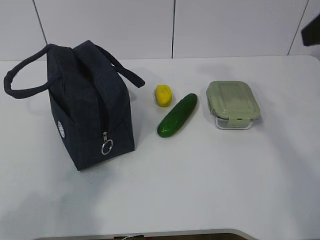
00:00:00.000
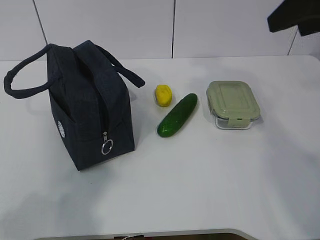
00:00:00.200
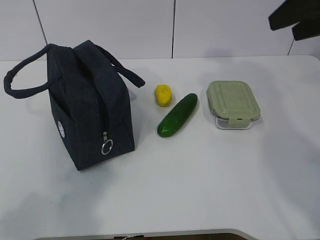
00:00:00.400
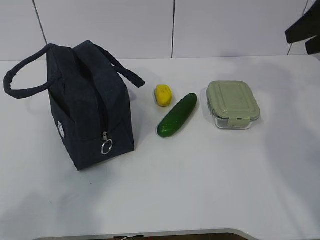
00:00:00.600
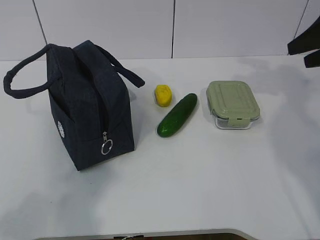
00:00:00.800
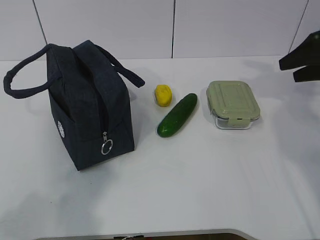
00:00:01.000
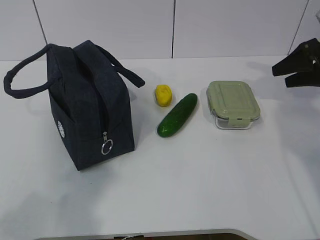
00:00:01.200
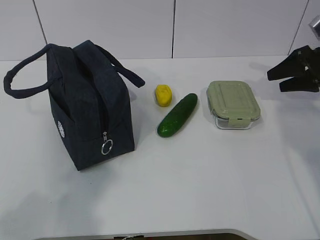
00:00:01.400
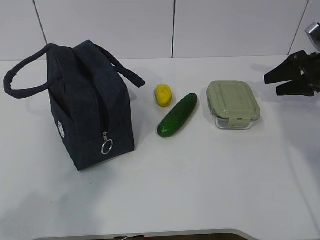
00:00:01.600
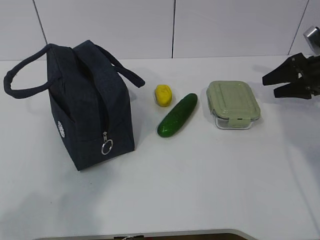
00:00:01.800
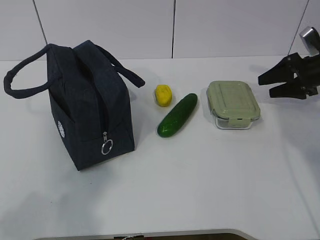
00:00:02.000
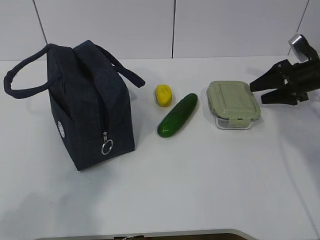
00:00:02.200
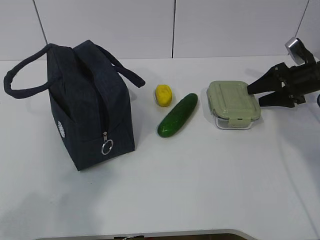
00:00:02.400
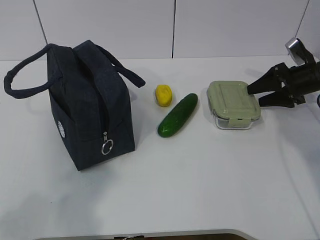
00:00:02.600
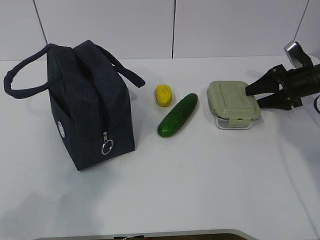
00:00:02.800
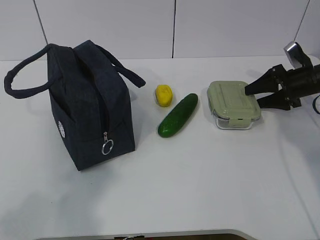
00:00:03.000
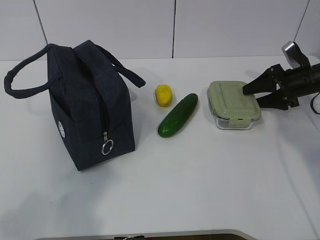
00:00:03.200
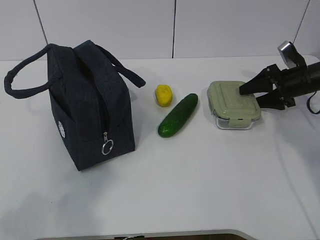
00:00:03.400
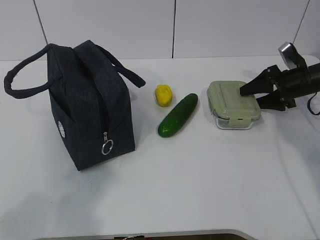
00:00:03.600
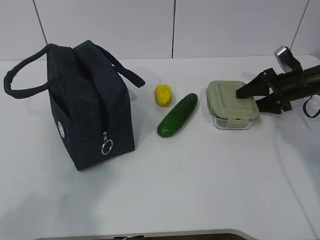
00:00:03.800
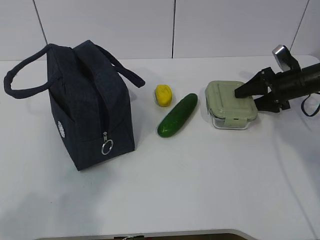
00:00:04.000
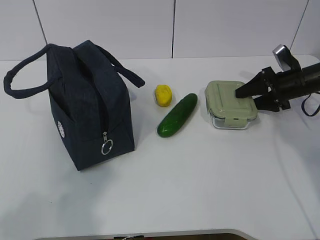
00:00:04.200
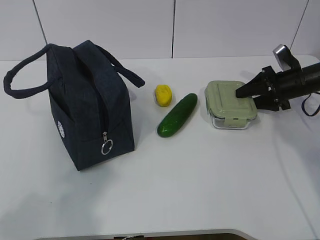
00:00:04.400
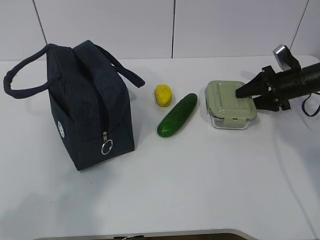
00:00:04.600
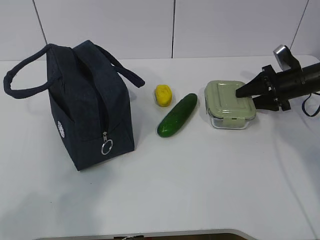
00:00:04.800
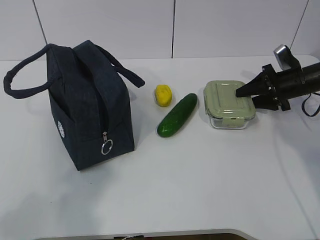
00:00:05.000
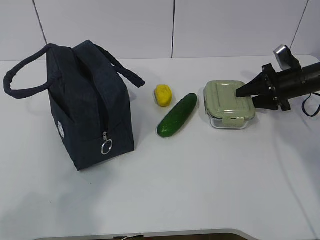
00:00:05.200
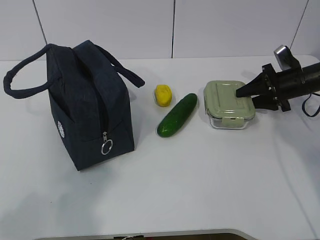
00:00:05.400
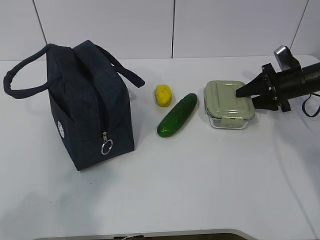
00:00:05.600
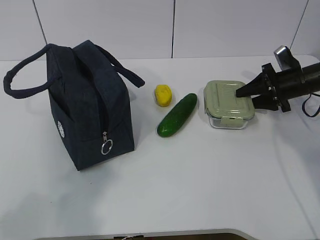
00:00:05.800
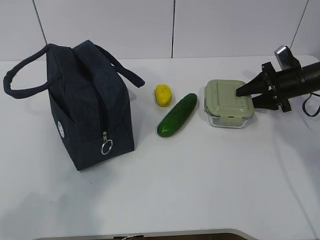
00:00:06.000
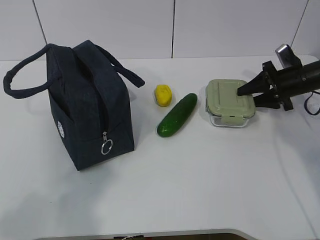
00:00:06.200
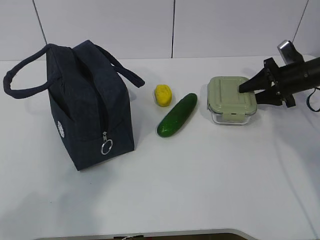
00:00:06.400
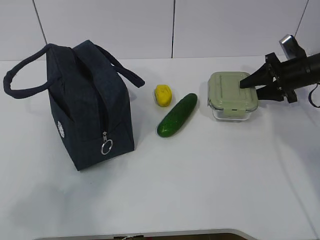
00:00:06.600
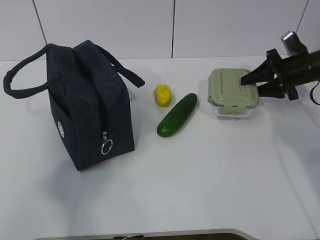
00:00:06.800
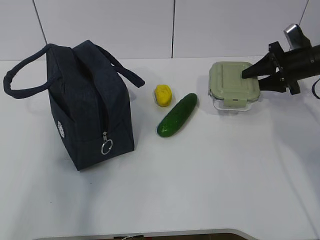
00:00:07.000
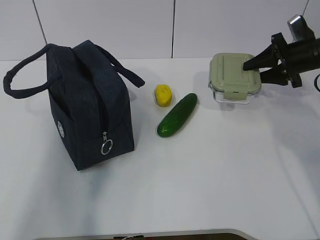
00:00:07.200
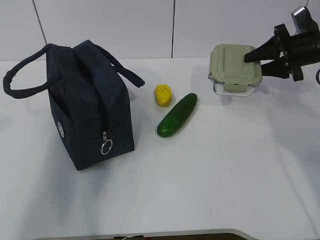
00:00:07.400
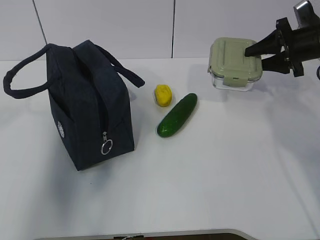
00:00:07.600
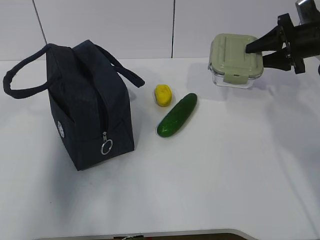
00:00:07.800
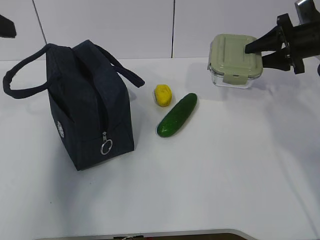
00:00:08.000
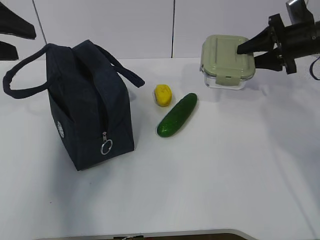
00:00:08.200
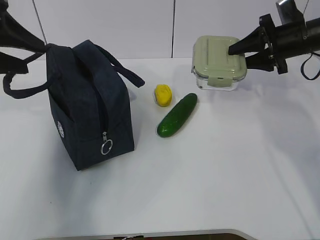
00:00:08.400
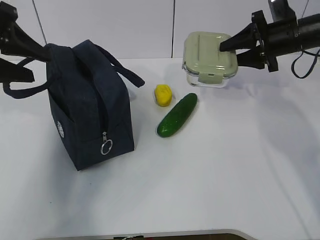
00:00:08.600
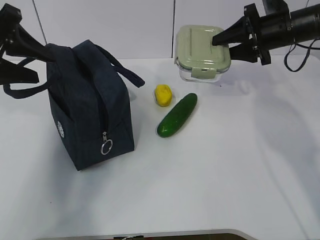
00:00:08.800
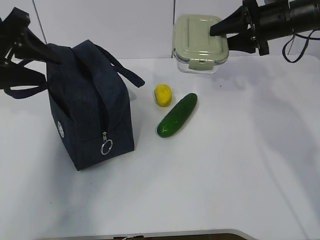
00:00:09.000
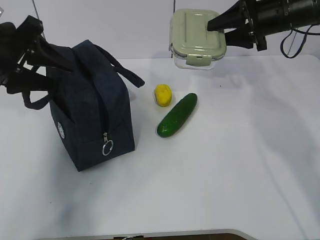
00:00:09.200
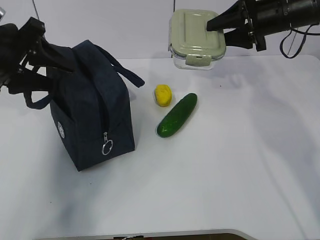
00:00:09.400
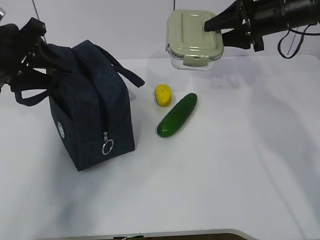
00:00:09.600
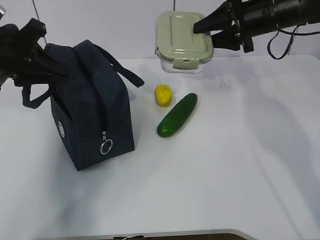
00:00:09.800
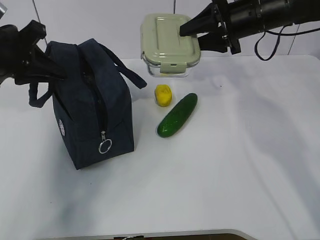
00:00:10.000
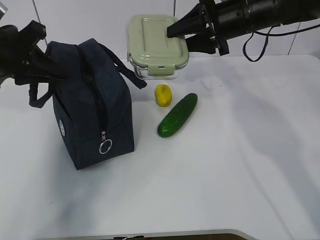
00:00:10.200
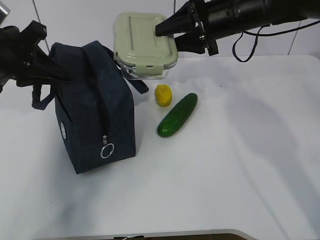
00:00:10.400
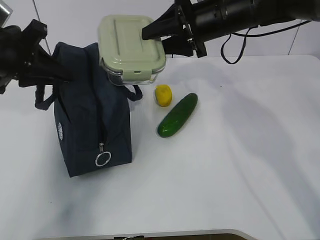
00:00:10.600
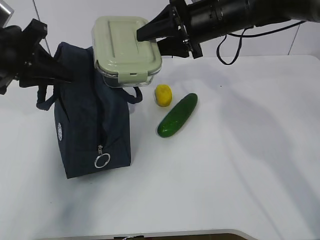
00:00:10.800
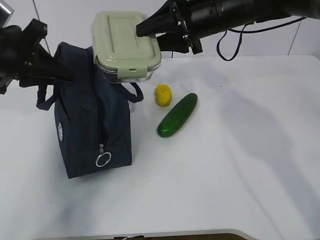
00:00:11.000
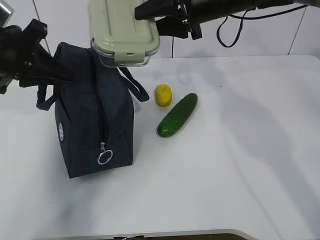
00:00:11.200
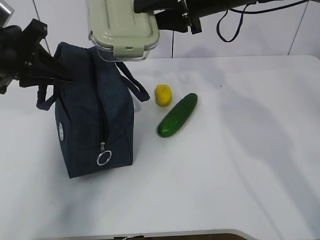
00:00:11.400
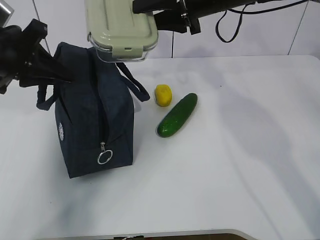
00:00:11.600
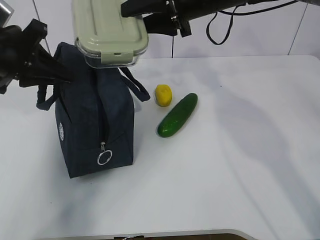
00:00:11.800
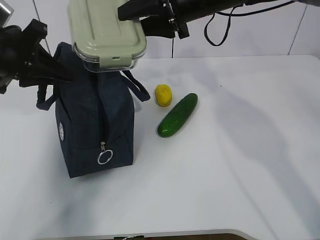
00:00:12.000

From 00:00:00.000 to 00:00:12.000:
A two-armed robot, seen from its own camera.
Step, from 00:00:00.000 to 00:00:04.200: Grab the lunch box with your right hand.
Step, from 00:00:04.400 to 00:00:10.000: Grab the lunch bag with your left hand.
From 00:00:00.000 to 00:00:01.600: The right gripper heads forward, downward and to the right, covering approximately 30 cm.
From 00:00:01.600 to 00:00:03.000: The right gripper moves some 5 cm.
From 00:00:03.000 to 00:00:06.000: The grippers make only small movements.
From 00:00:06.000 to 00:00:07.600: The left gripper travels forward and upward by some 20 cm, while the right gripper shifts approximately 10 cm upward.
From 00:00:07.600 to 00:00:09.000: The left gripper travels forward by about 15 cm. The right gripper shifts some 10 cm to the left.
From 00:00:09.000 to 00:00:10.400: The left gripper closes up; the right gripper heads to the left, covering roughly 10 cm.
From 00:00:10.400 to 00:00:12.000: The right gripper heads to the left, covering some 5 cm.

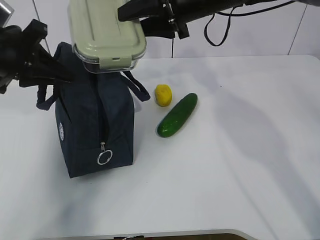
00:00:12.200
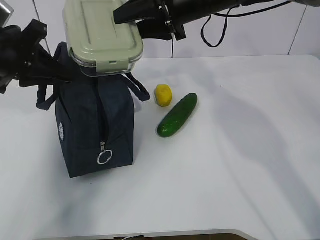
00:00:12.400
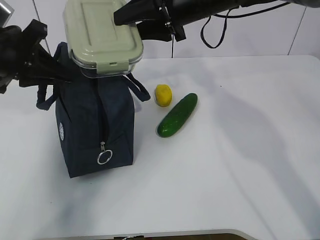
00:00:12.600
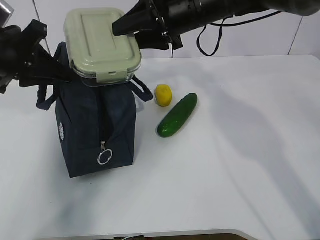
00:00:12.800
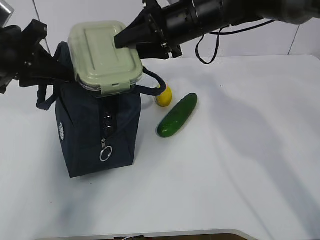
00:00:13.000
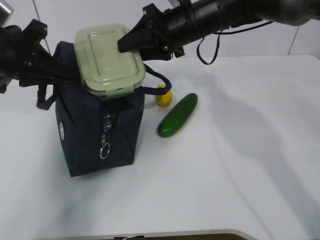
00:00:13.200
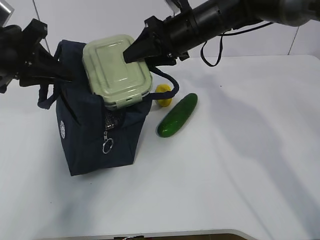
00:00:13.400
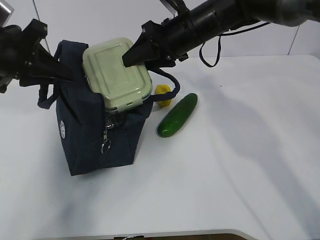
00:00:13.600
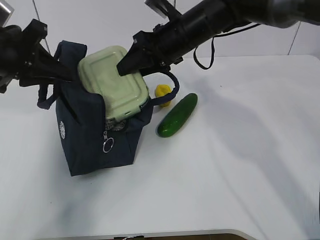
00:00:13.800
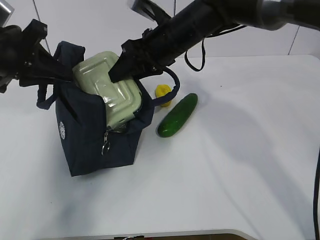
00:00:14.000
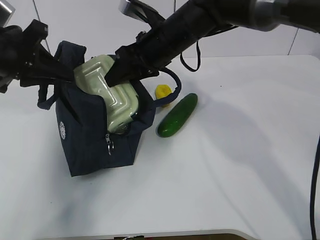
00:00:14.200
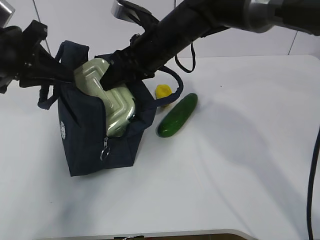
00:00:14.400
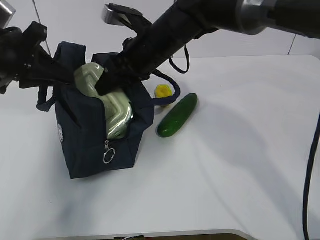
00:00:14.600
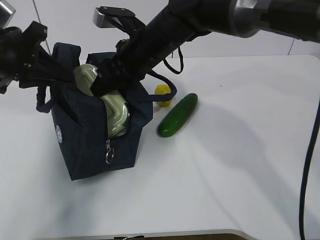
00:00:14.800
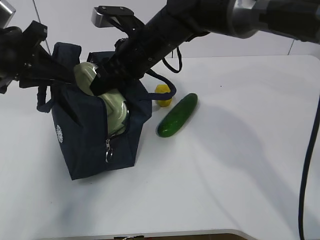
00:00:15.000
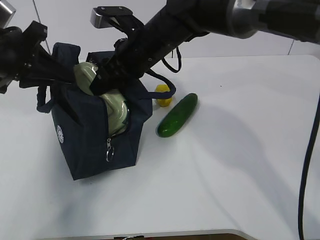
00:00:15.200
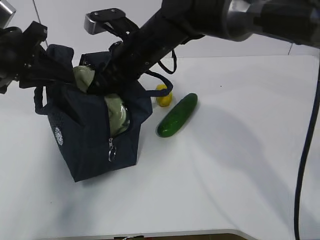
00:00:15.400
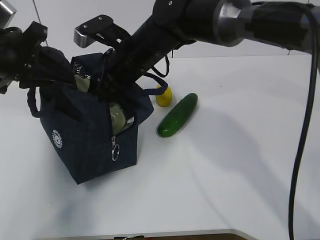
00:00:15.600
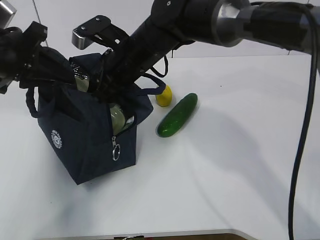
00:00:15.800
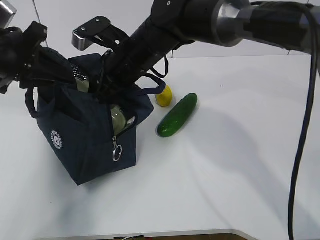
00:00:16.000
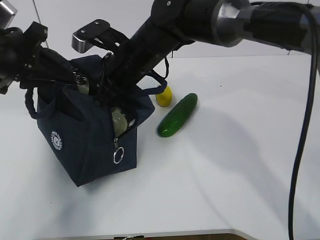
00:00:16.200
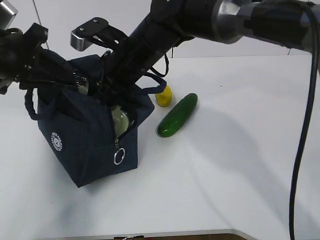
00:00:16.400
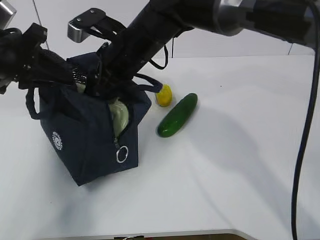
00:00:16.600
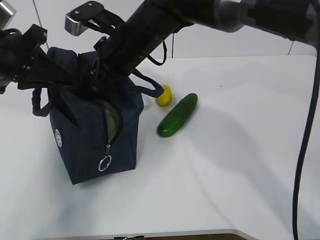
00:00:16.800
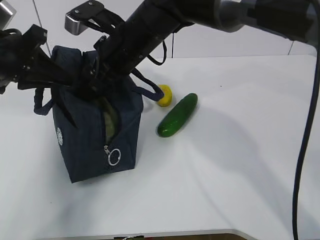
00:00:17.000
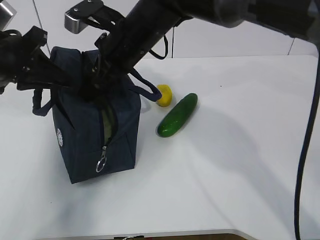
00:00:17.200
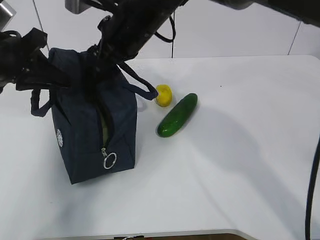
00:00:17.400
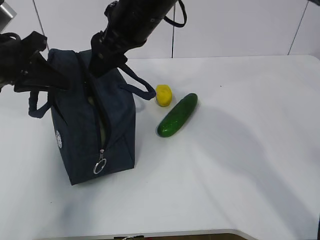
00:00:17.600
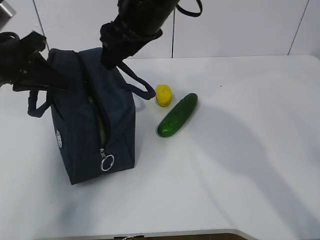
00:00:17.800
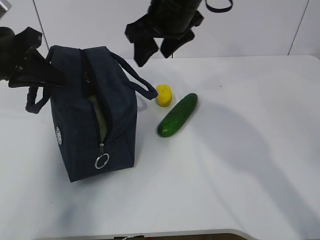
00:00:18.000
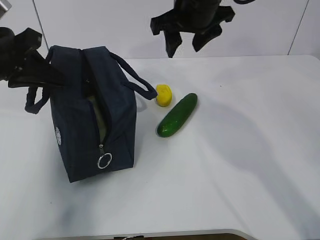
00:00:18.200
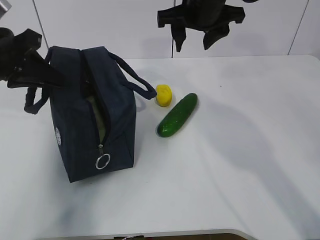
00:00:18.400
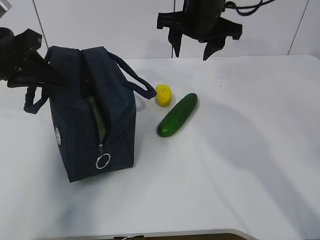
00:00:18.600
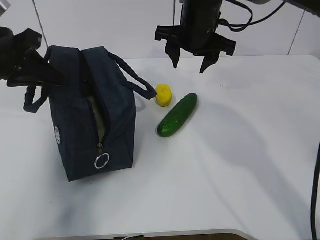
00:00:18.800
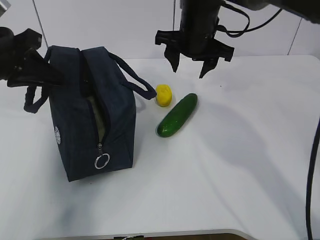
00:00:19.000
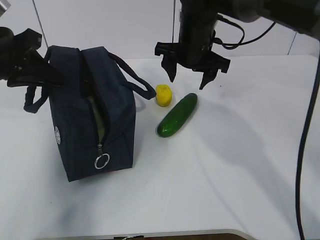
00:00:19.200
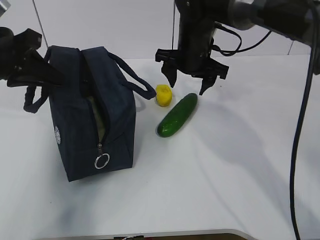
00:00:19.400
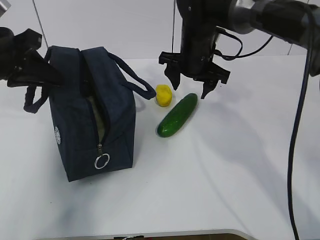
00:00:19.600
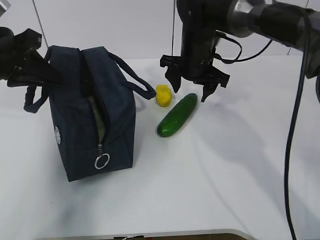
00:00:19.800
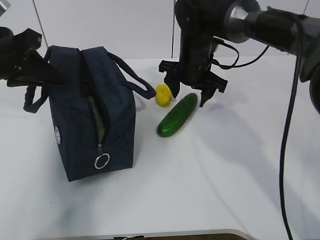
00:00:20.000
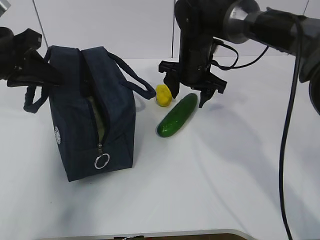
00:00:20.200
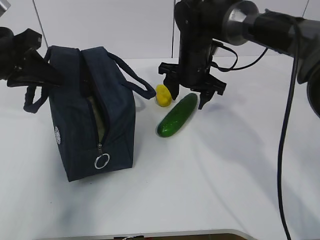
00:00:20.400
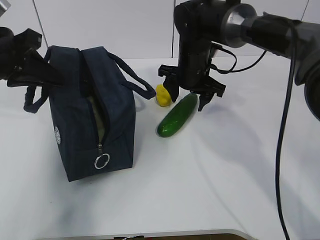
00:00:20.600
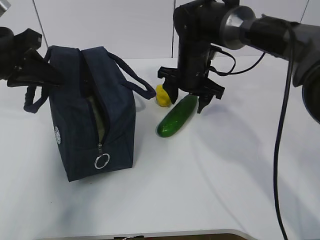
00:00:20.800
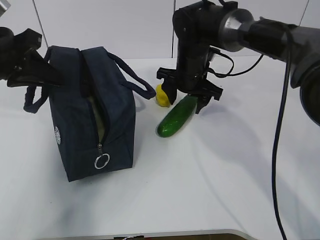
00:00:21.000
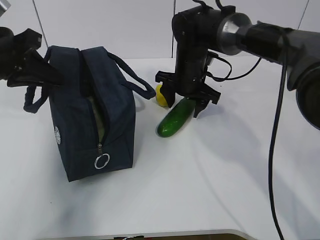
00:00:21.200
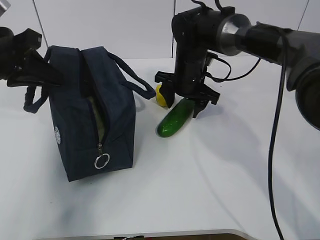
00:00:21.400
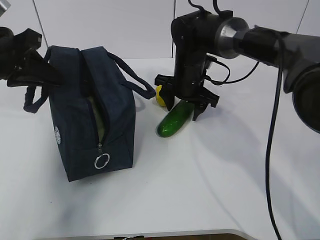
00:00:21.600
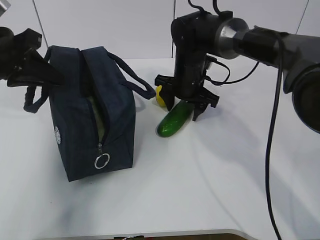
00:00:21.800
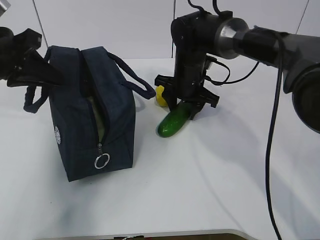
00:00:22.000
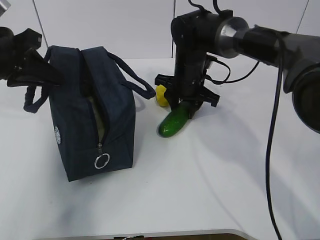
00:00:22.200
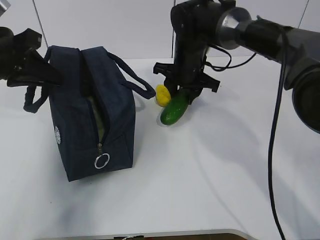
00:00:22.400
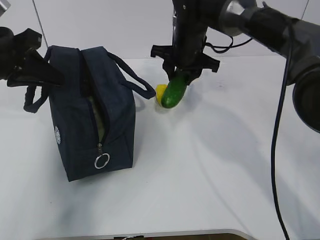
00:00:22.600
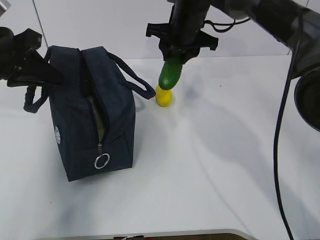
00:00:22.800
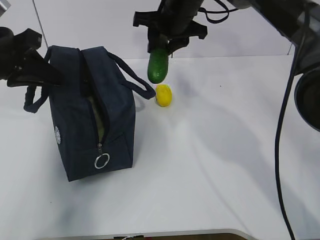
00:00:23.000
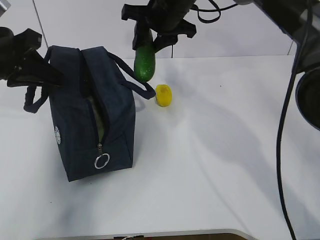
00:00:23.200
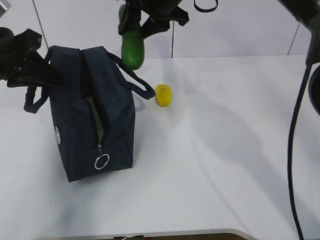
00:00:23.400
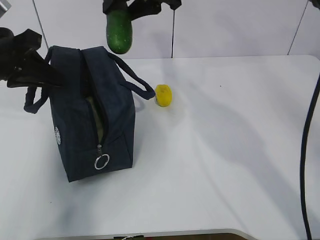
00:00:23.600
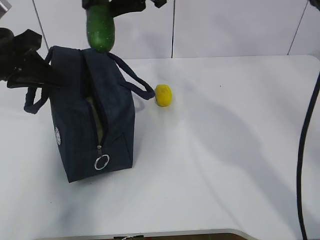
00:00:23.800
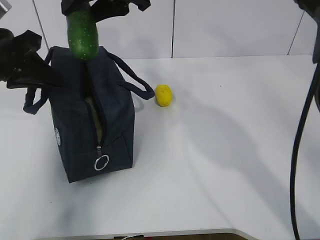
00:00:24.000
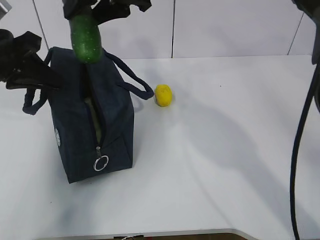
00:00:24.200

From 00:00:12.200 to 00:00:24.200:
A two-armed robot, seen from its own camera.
Step, from 00:00:13.800 to 00:00:17.800: Grab the cucumber with your right hand.
Step, from 00:00:18.000 to 00:00:21.000: Place it into the bag with your right hand.
From 00:00:12.200 to 00:00:13.800: The right gripper moves downward, roughly 5 cm.
From 00:00:13.800 to 00:00:15.200: The right gripper travels to the left by roughly 5 cm.
From 00:00:16.600 to 00:00:18.200: The right gripper is displaced to the right and upward by some 10 cm.
From 00:00:18.200 to 00:00:19.800: The right gripper goes about 10 cm downward.
From 00:00:19.800 to 00:00:21.200: The grippers stay close to where they were, moving slightly.
From 00:00:21.200 to 00:00:22.600: The right gripper closes.
From 00:00:22.600 to 00:00:24.200: The right gripper shifts roughly 20 cm upward, to the left and backward.
